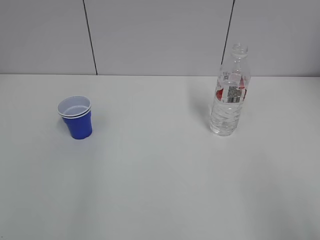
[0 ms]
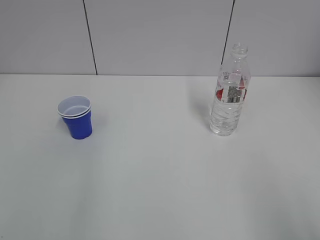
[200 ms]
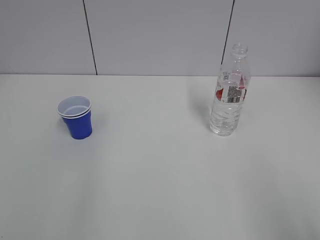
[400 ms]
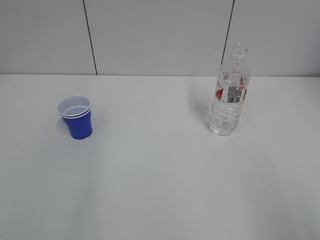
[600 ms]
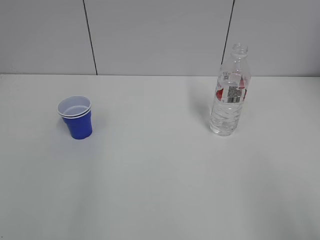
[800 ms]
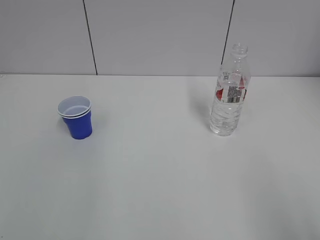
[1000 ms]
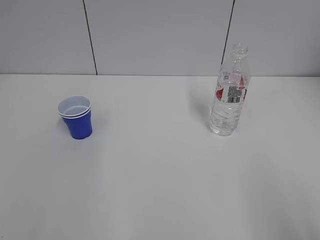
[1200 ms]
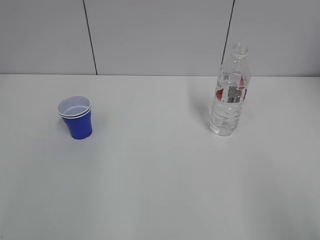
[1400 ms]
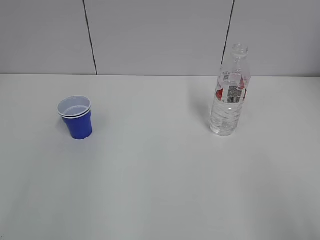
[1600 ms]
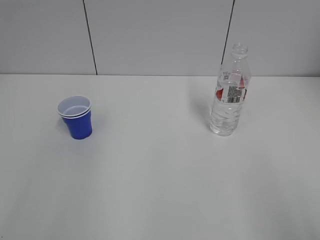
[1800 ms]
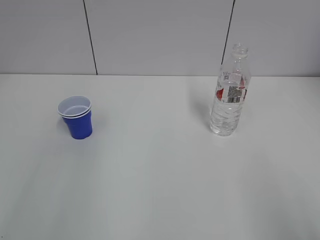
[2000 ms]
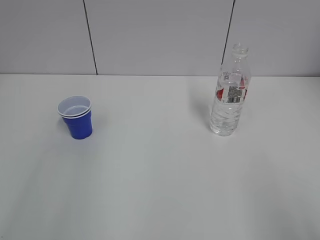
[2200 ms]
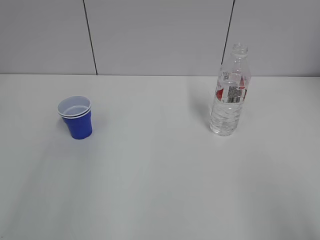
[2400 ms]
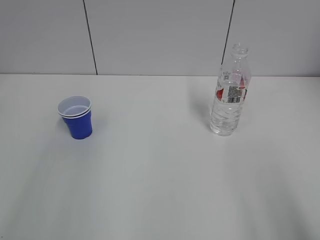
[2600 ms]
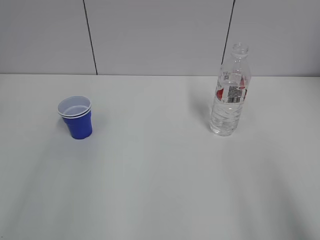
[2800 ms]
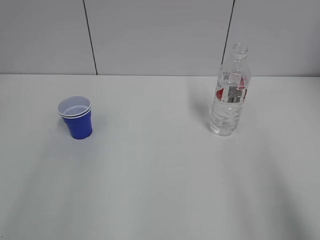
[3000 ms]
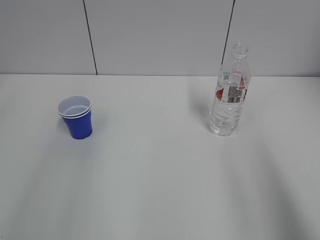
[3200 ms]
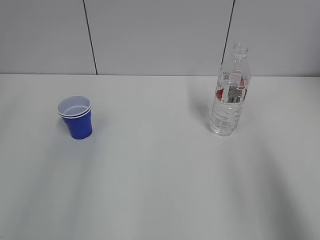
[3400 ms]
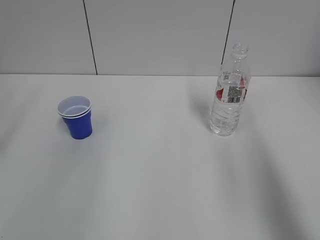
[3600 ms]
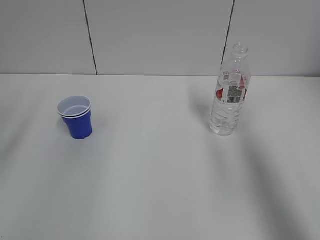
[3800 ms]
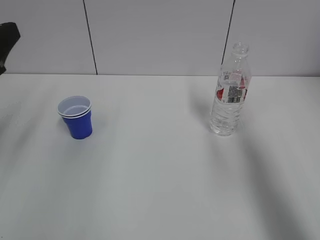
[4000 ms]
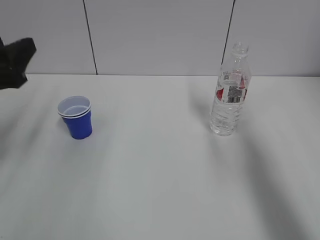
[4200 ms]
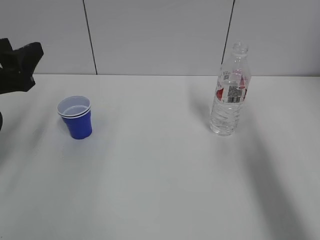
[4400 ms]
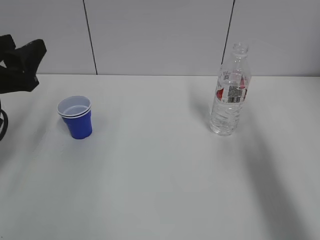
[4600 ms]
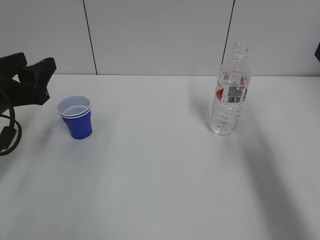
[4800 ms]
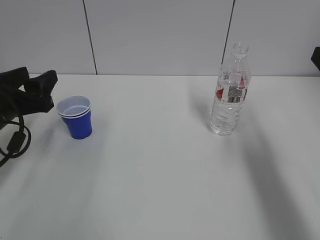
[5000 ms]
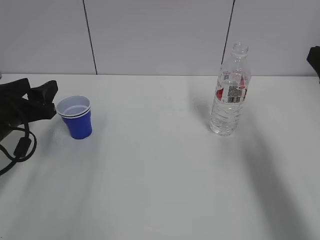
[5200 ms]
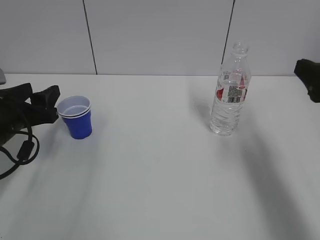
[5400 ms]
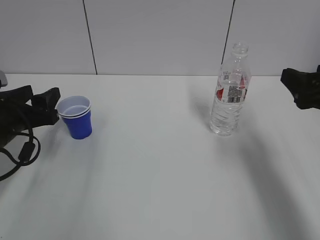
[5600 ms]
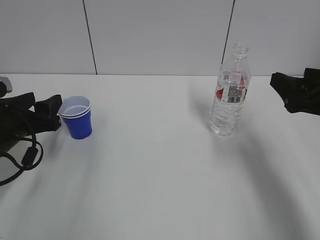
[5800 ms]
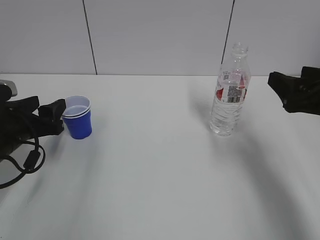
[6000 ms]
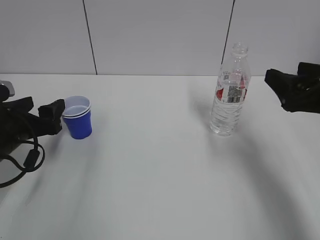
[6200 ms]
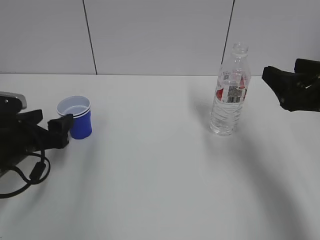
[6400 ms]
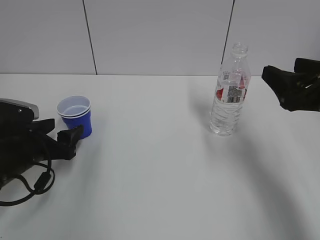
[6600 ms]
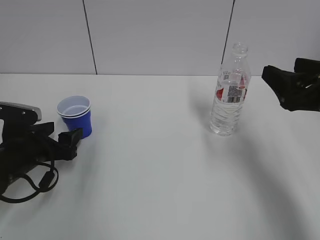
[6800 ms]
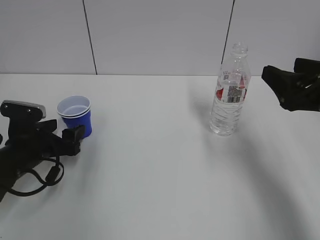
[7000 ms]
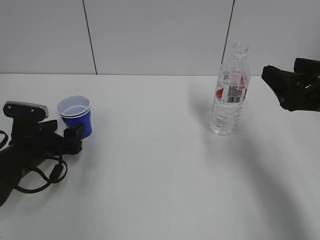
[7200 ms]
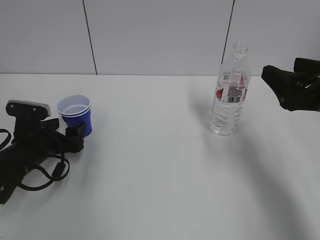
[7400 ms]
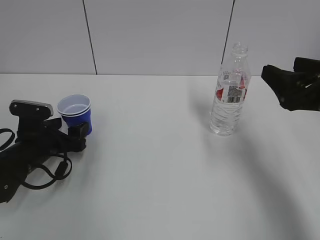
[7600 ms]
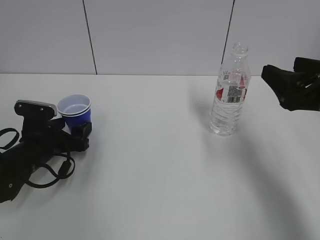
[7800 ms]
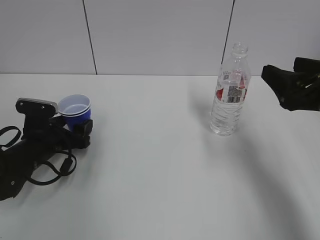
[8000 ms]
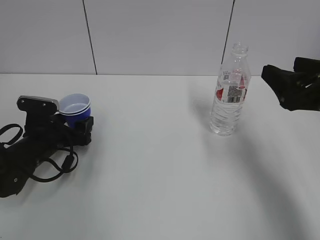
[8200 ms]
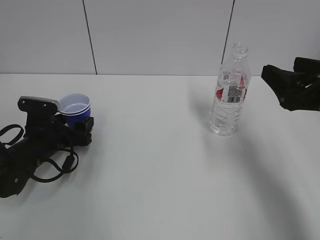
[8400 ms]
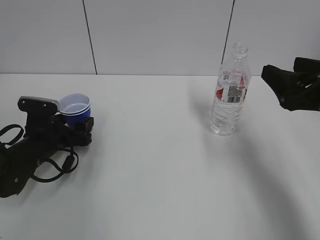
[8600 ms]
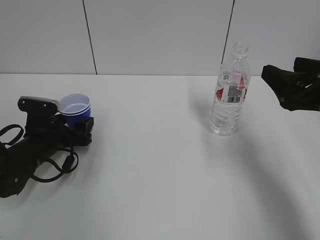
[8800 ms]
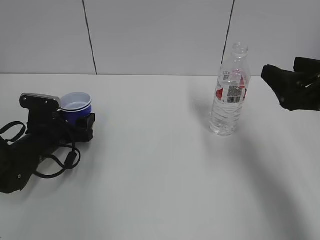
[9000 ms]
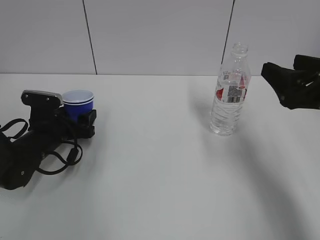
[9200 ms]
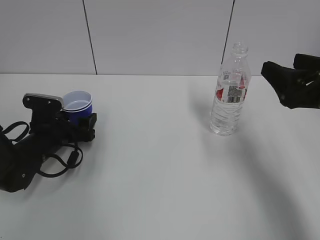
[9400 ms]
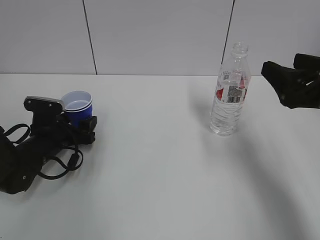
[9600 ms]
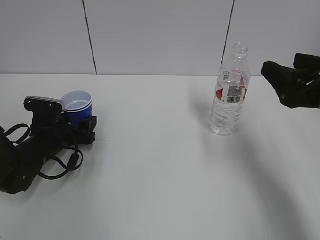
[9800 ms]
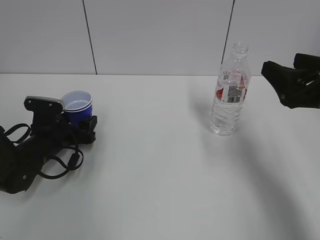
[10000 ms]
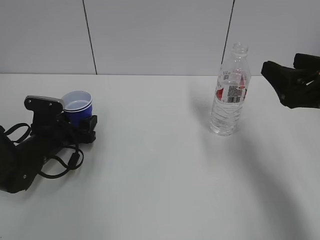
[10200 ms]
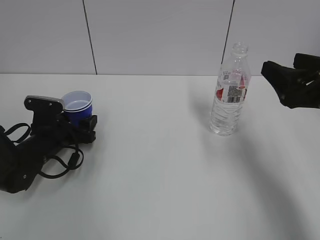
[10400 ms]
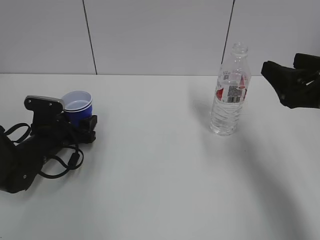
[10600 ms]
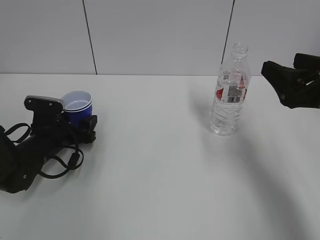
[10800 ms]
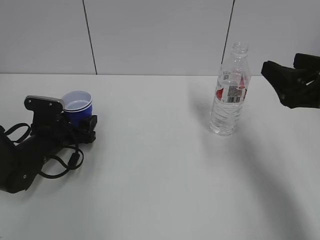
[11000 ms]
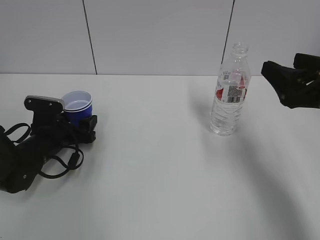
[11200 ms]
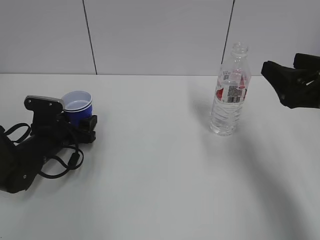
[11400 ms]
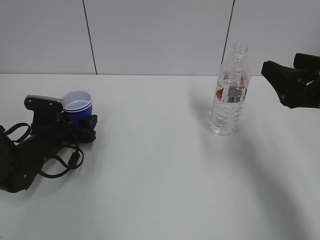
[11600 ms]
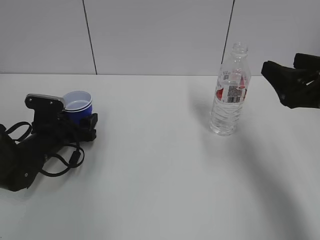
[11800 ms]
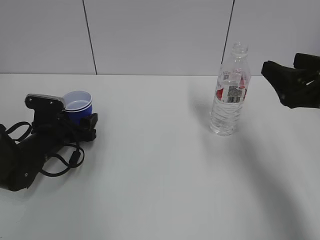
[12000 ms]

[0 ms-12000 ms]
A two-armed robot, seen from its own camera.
3000 ms to 4400 ms: The right gripper moves forward, about 20 cm. The left gripper goes about 20 cm forward, downward and to the right.
4400 ms to 6000 ms: The right gripper goes about 10 cm downward and forward. Meanwhile the left gripper heads downward, covering some 10 cm.
6000 ms to 7600 ms: The left gripper heads downward, covering some 5 cm, and opens.
7600 ms to 9000 ms: The grippers move only a little.
9000 ms to 12000 ms: Both grippers stay about where they are.

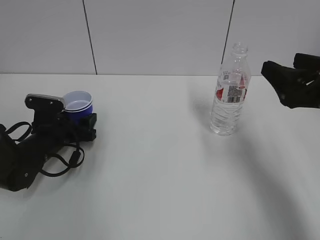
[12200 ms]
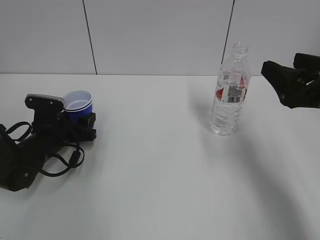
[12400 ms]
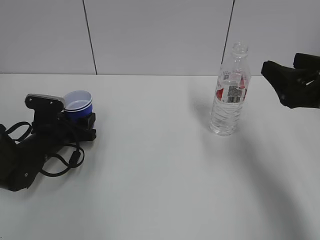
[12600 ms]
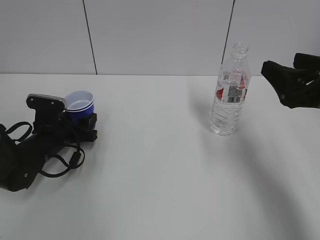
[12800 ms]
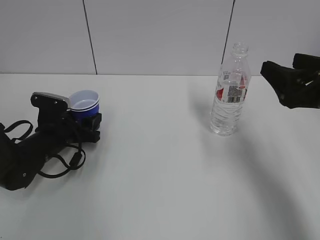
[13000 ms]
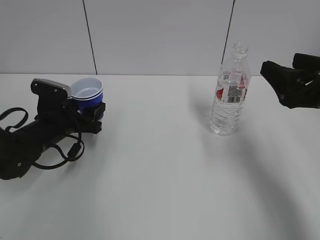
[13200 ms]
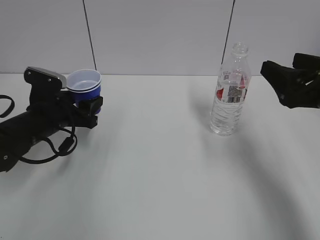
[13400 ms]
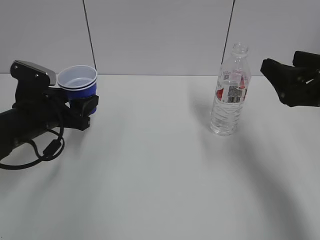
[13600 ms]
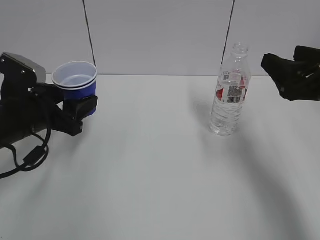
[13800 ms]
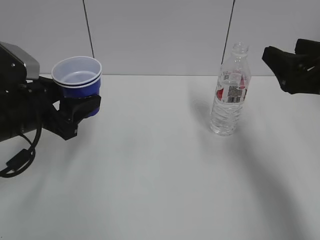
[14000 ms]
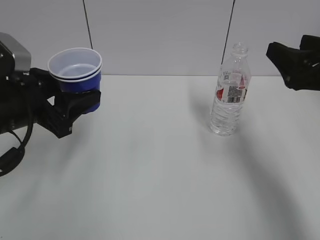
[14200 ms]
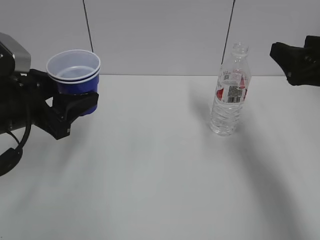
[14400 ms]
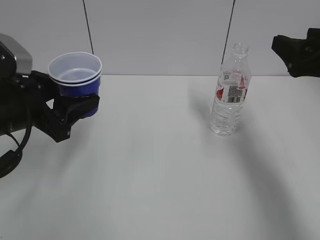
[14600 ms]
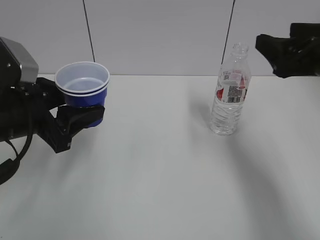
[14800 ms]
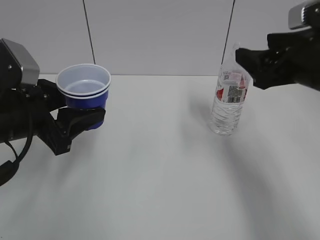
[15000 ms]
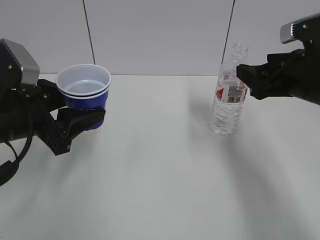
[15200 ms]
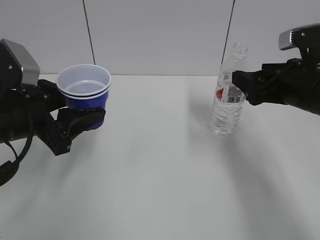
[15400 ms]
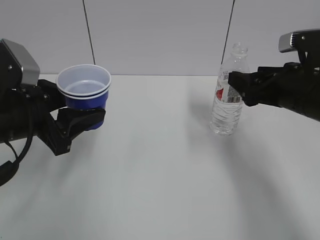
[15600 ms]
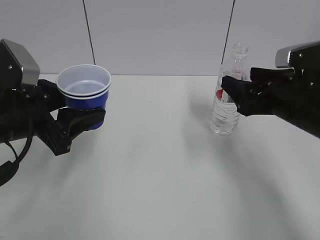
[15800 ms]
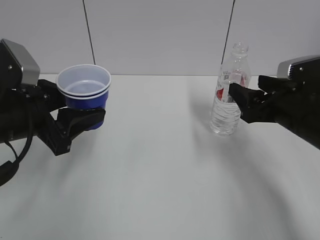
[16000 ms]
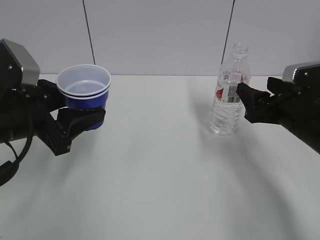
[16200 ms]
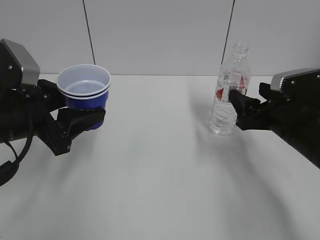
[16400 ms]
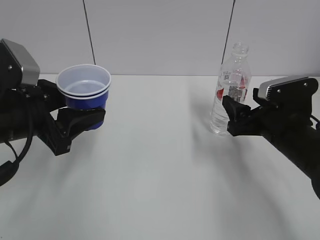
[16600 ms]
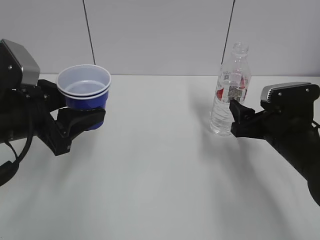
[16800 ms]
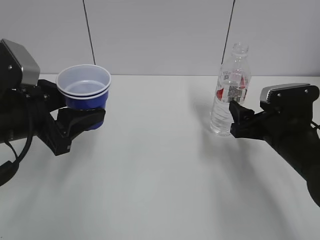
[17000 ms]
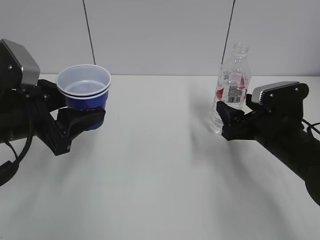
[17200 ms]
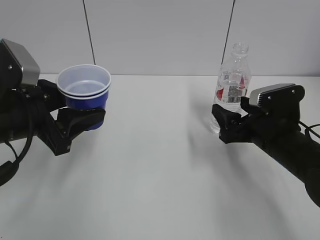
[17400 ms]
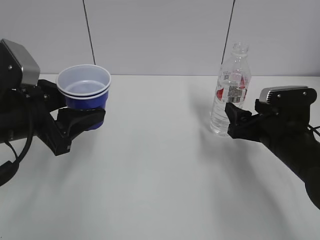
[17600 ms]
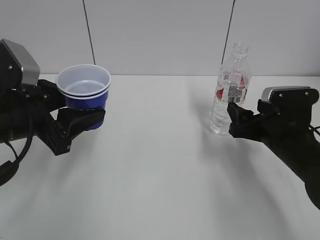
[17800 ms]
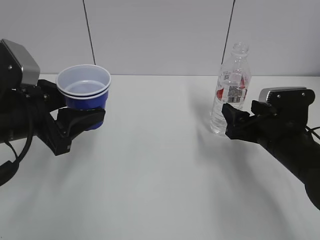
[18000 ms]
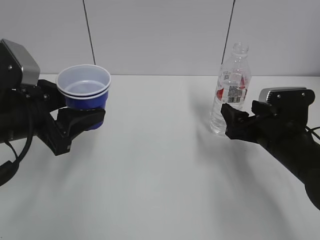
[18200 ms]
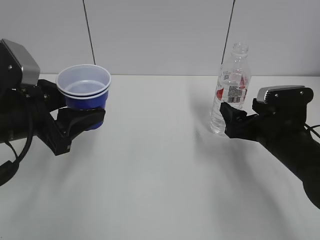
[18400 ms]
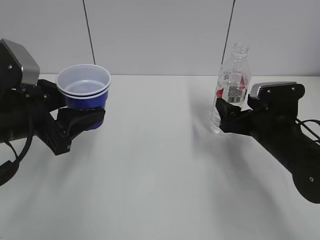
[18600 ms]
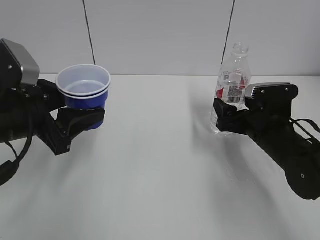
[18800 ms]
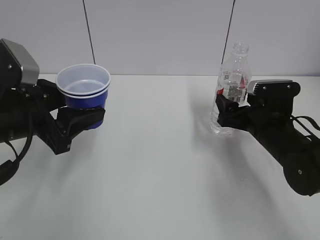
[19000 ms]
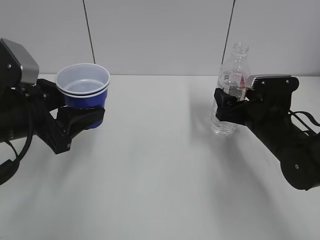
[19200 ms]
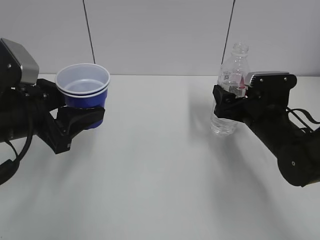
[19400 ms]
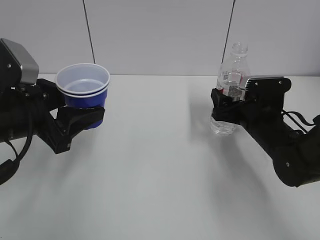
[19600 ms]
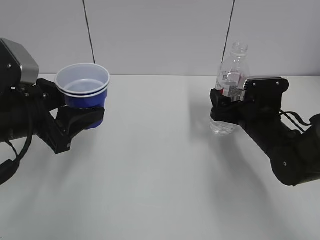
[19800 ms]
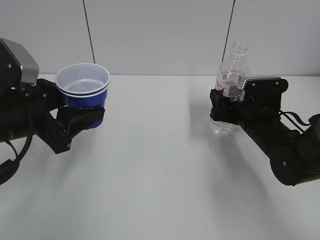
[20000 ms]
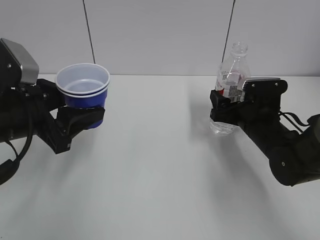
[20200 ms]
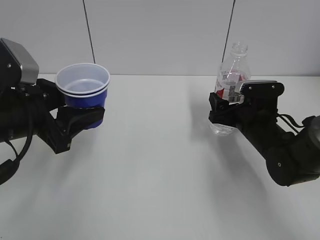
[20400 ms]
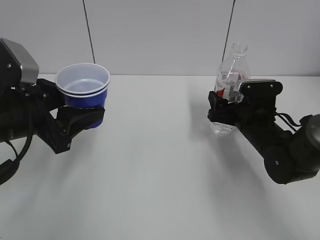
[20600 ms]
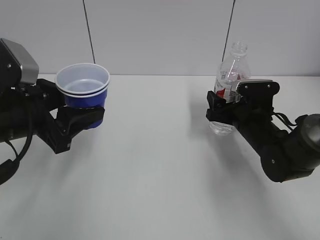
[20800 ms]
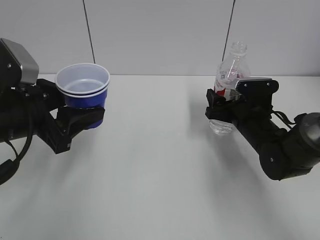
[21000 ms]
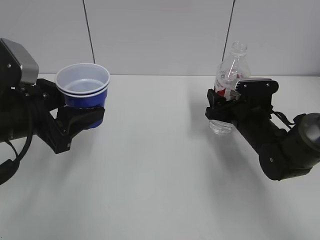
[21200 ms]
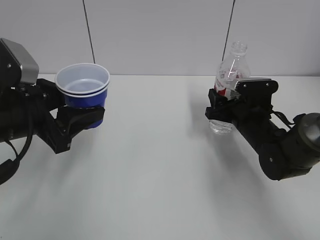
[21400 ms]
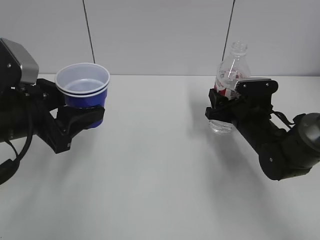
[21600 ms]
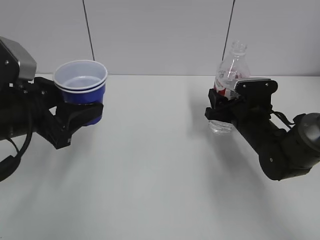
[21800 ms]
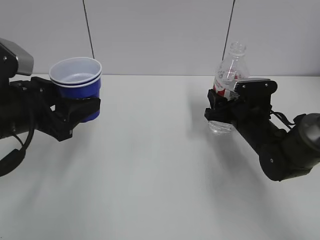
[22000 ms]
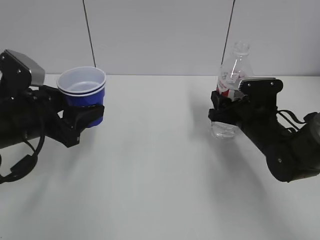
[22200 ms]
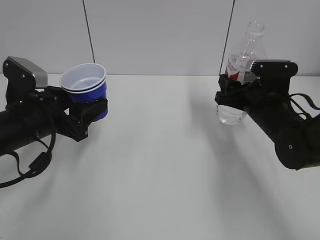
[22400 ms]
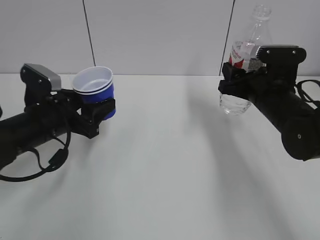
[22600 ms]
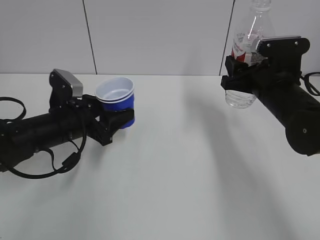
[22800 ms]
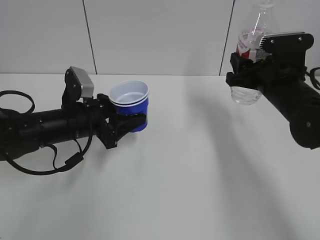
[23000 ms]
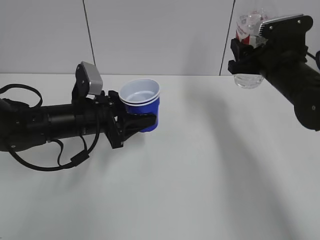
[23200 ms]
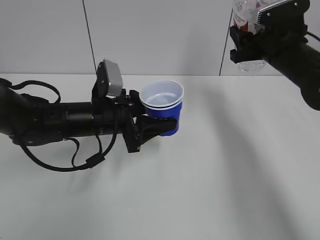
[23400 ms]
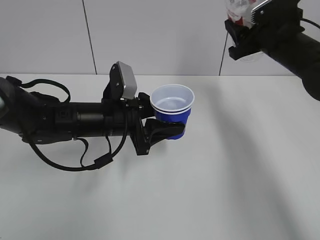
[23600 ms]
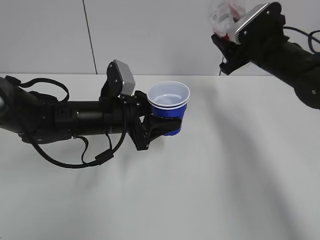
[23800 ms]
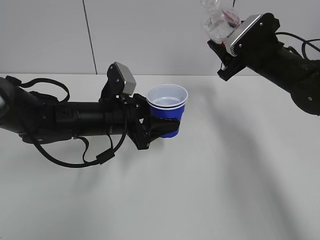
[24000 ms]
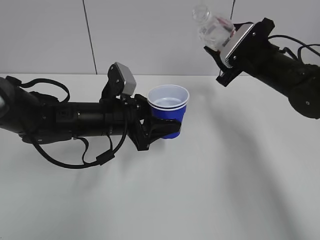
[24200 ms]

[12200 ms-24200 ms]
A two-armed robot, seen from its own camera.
Step, 12800 ms to 21600 ms: Grab the water bottle with the right hand.
12200 ms to 13800 ms: The left gripper travels upward and backward by about 15 cm, and closes up.
13800 ms to 15200 ms: The left gripper moves approximately 5 cm.
15200 ms to 16600 ms: The right gripper is displaced downward by some 10 cm.
16600 ms to 18200 ms: The grippers move only a little.
18200 ms to 19800 ms: The right gripper heads forward, covering roughly 5 cm.
19800 ms to 21200 ms: The right gripper closes its fingers.
21200 ms to 22600 ms: The left gripper is displaced downward and forward by about 10 cm. The right gripper travels upward by roughly 10 cm, and closes its fingers.
22600 ms to 24200 ms: The right gripper shifts approximately 5 cm forward. The left gripper goes some 10 cm to the right.
